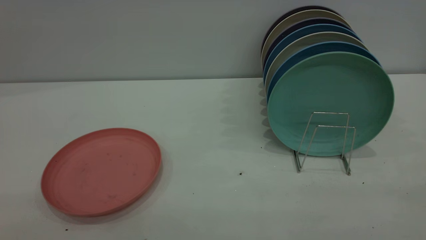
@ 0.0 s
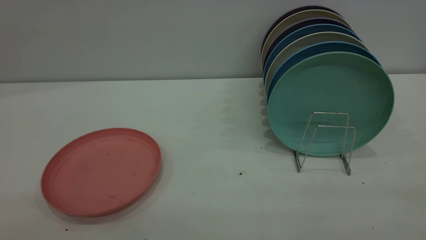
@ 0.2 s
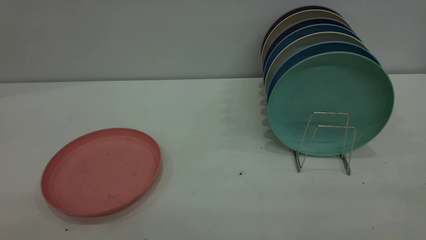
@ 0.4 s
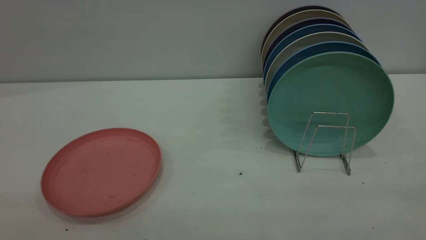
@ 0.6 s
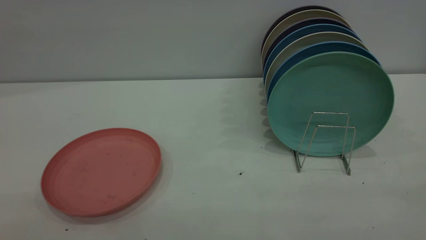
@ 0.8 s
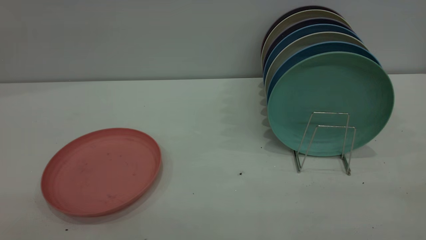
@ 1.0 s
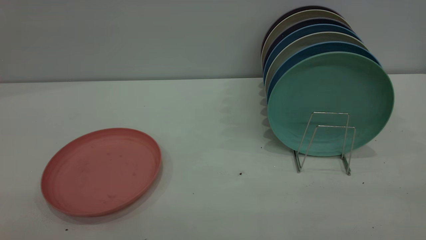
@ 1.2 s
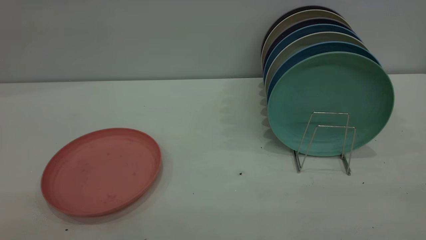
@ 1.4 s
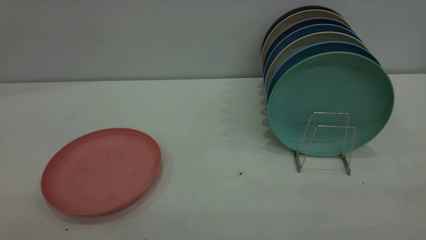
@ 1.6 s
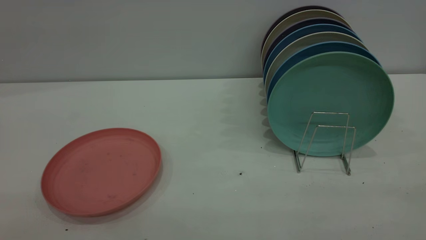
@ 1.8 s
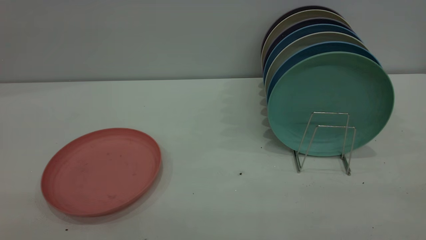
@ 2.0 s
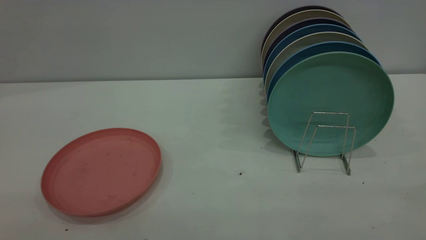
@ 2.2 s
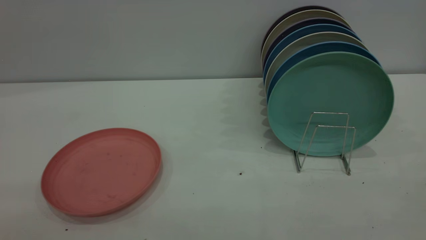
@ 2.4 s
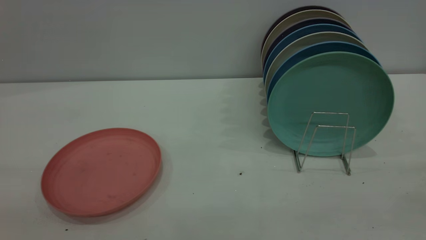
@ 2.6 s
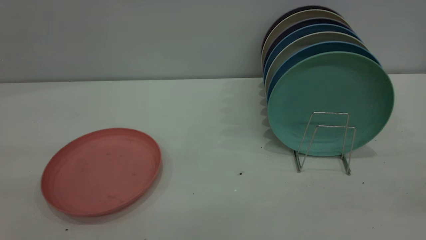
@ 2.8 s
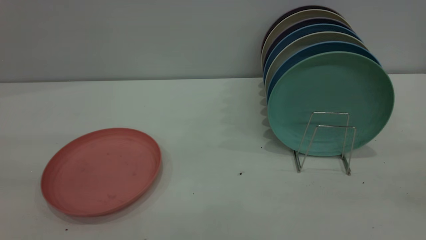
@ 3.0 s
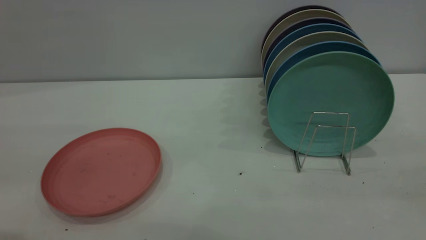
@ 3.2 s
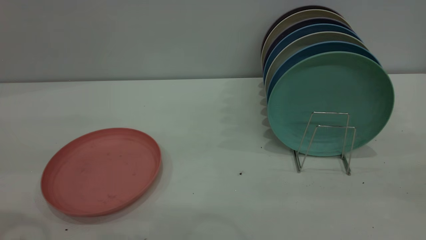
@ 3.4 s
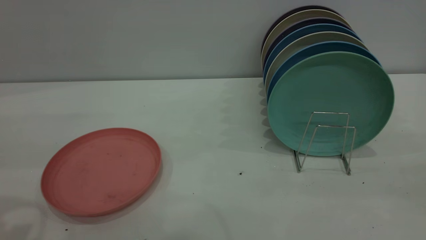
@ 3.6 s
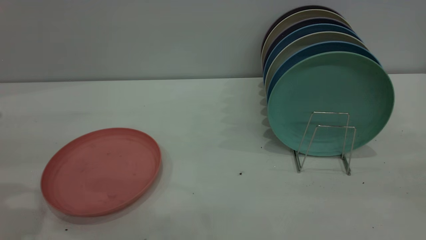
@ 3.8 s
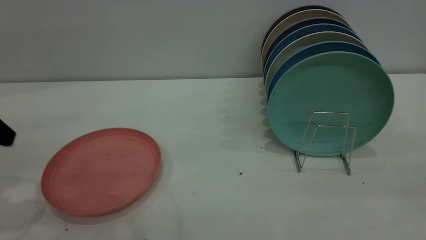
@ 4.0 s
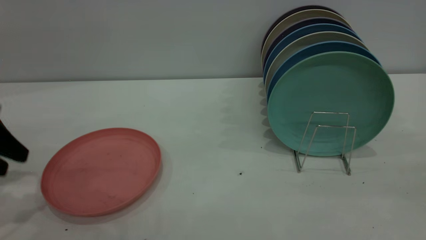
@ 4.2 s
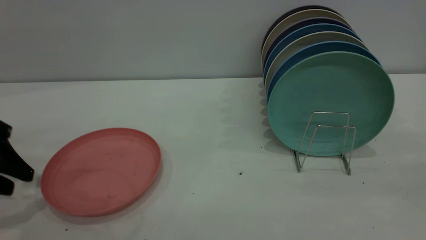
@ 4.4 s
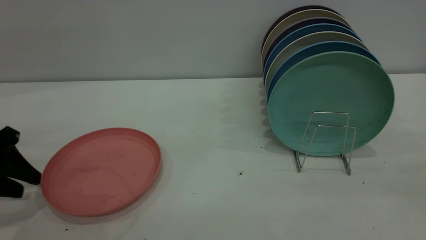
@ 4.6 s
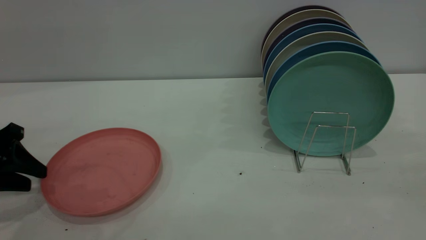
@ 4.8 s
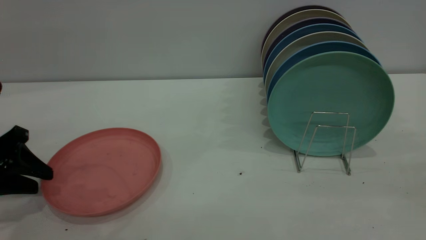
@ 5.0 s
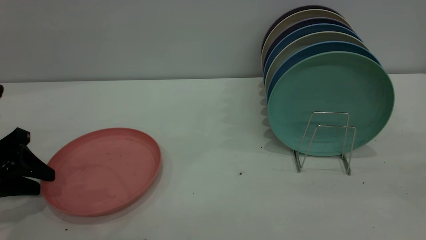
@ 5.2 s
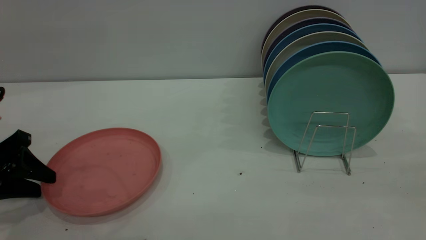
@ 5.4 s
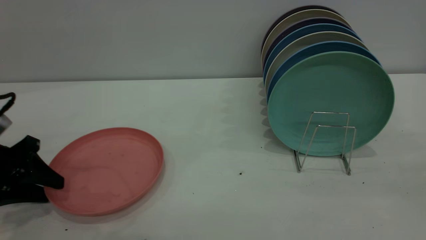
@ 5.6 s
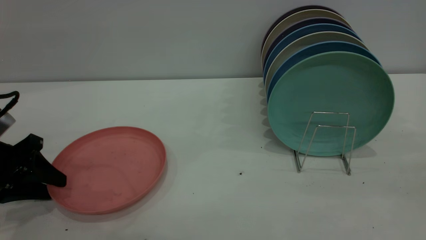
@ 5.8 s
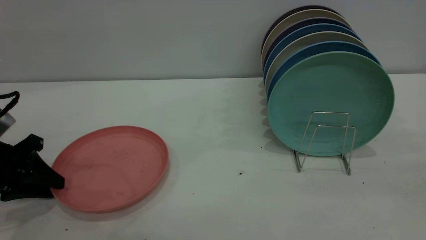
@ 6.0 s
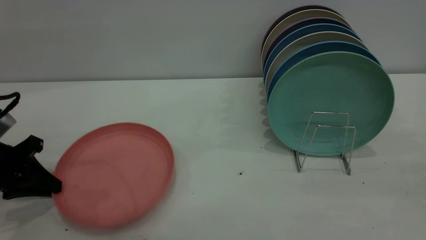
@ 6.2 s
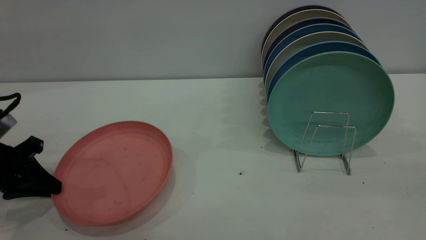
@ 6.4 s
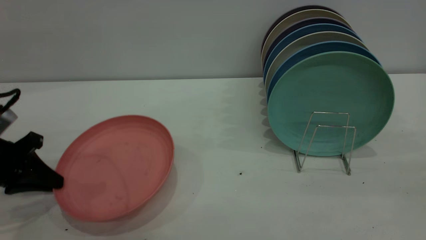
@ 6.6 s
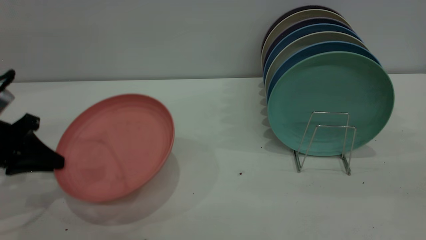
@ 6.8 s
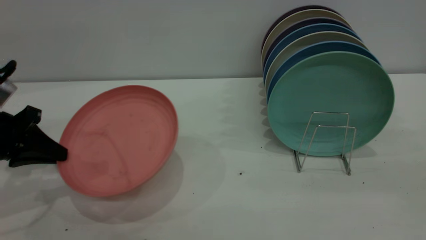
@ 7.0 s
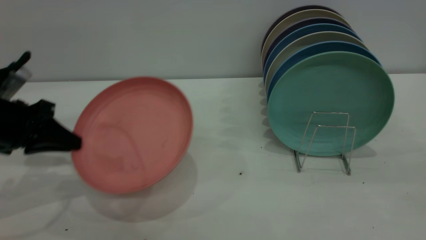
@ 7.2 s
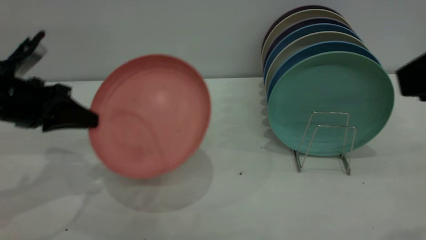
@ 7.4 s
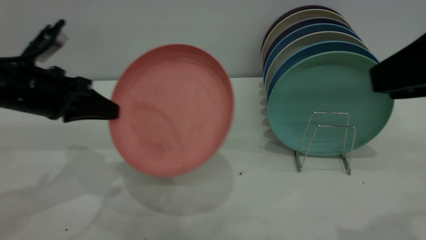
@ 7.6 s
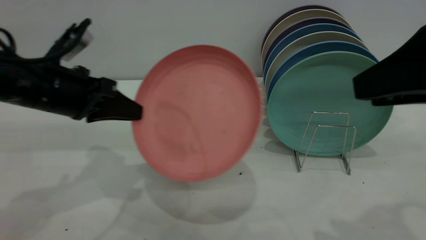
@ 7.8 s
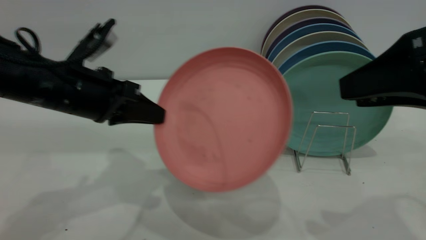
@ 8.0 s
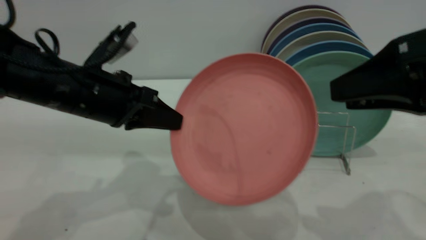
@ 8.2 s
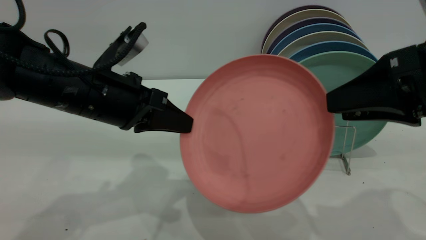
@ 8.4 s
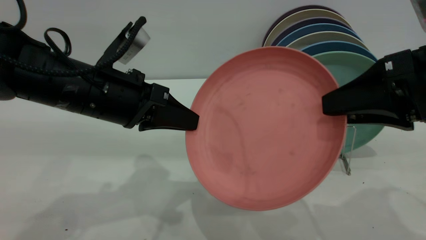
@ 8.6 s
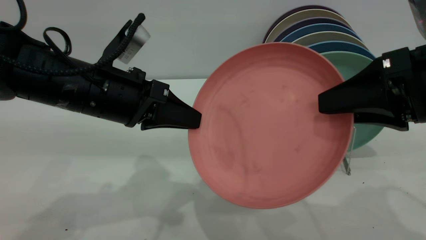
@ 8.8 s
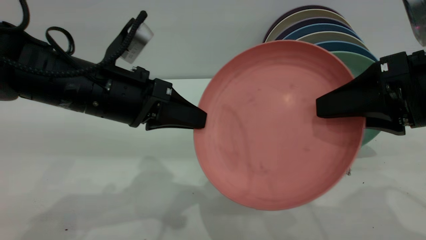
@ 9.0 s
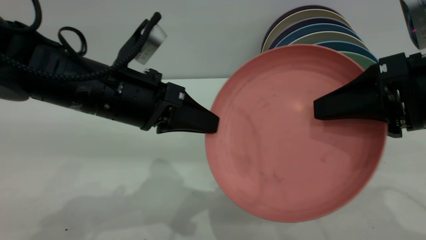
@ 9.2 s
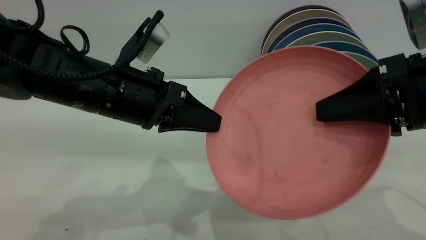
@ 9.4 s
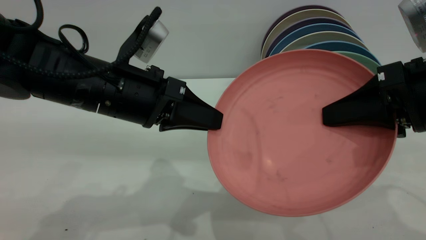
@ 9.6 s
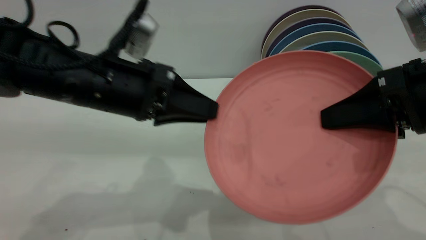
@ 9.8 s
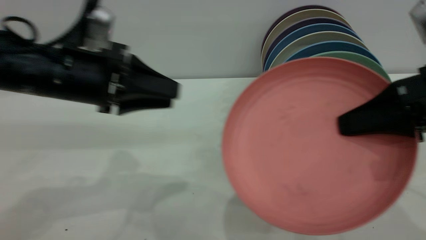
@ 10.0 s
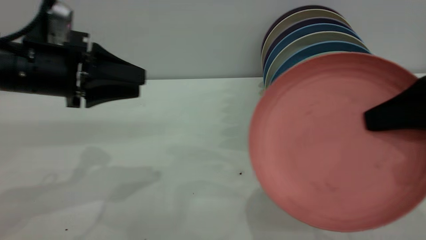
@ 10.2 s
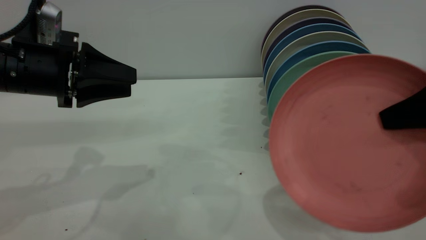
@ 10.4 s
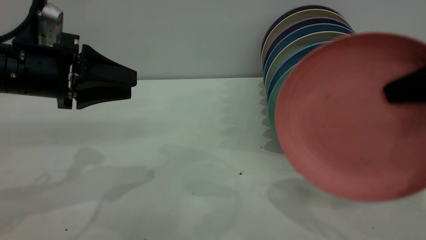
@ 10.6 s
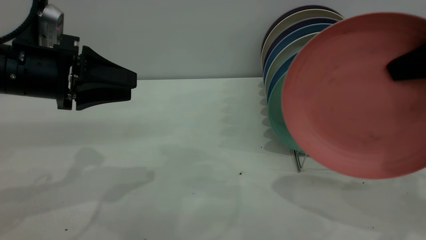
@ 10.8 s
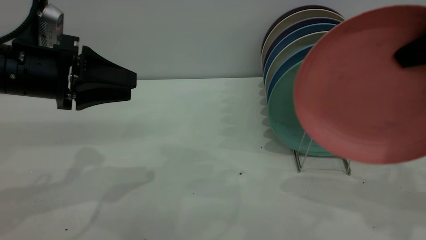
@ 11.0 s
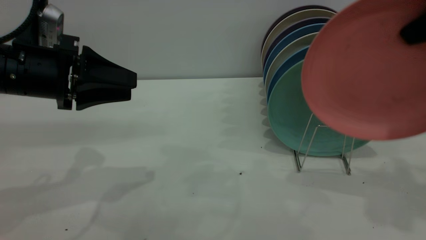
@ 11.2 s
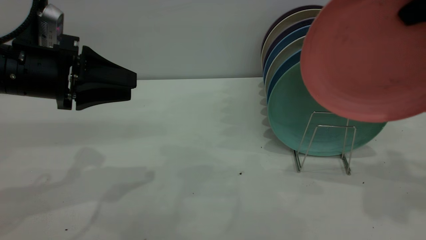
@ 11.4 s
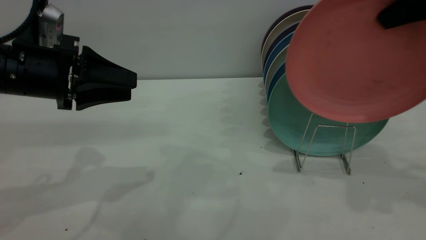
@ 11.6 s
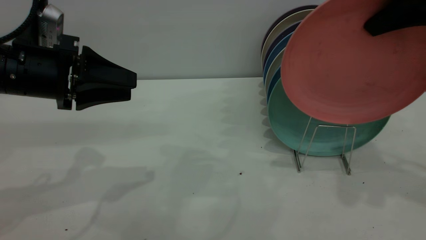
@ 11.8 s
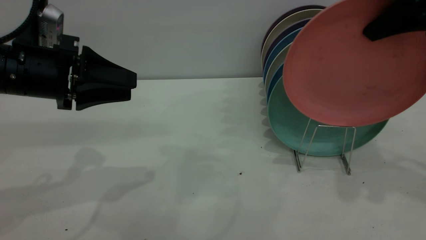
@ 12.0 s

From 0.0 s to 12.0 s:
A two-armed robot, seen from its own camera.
Task of the whole recording: put the plate on the plate rack.
Step, from 0.0 s to 6.6 s: Pick up the plate with the left gripper.
Step, from 6.8 s to 9.8 s: Pass the plate from the left gripper to the right gripper.
From 0.0 s to 1.6 s: The two grippers keep their place.
From 3.0 s to 4.4 s: The left gripper travels downward and forward by about 25 cm.
From 4.4 s to 6.0 s: The left gripper closes.
From 6.0 s to 7.6 s: The right gripper travels forward and downward by about 10 cm, while the left gripper travels to the right and upward by roughly 10 cm, and closes its fingers.
From 7.6 s to 9.0 s: The right gripper goes roughly 10 cm downward. The left gripper travels to the right by about 10 cm.
From 9.0 s to 10.4 s: The left gripper moves to the left, approximately 10 cm, and opens its fingers, while the right gripper travels to the right by roughly 5 cm, and closes up.
From 10.4 s to 12.0 s: The right gripper heads forward and upward, covering roughly 15 cm.

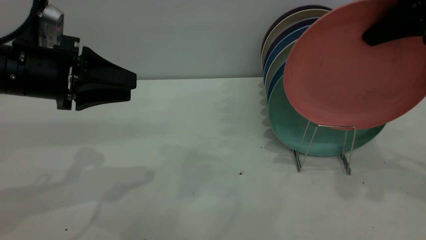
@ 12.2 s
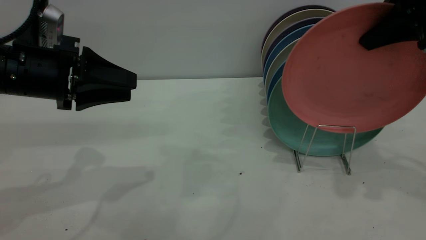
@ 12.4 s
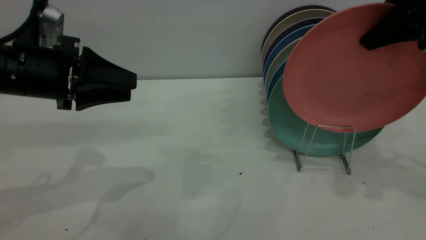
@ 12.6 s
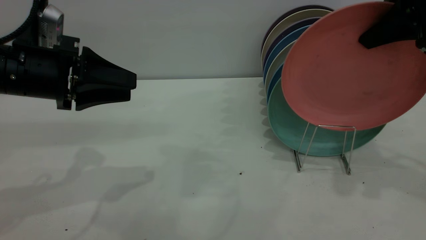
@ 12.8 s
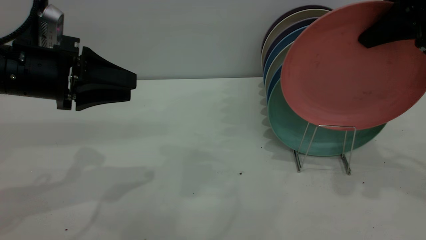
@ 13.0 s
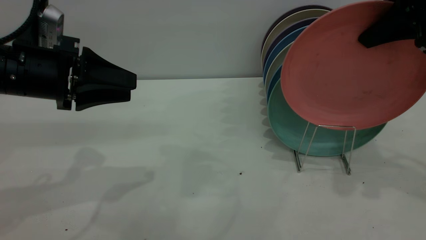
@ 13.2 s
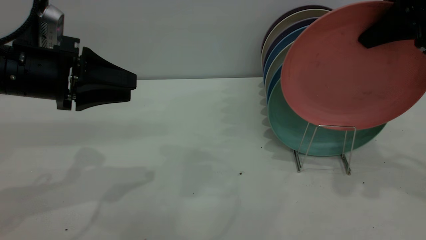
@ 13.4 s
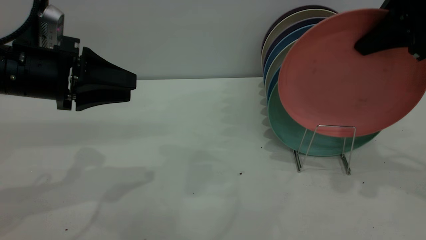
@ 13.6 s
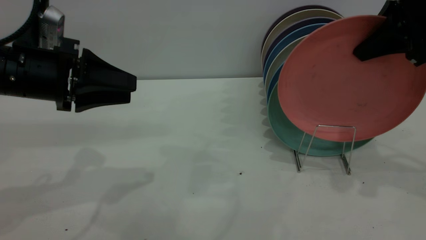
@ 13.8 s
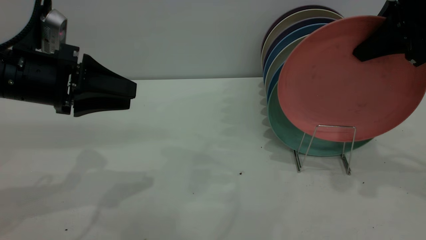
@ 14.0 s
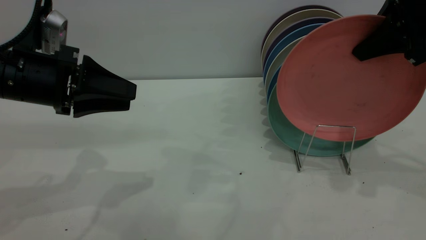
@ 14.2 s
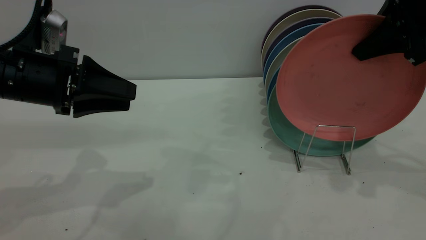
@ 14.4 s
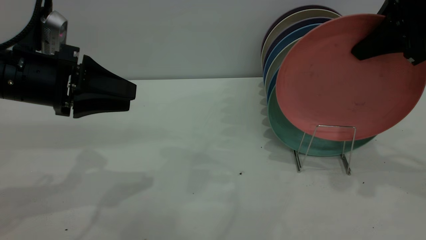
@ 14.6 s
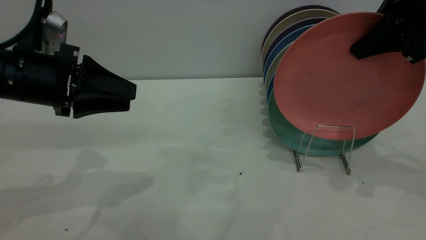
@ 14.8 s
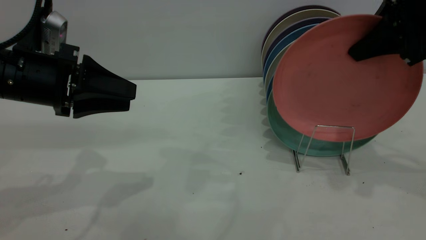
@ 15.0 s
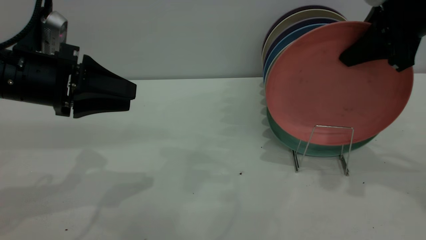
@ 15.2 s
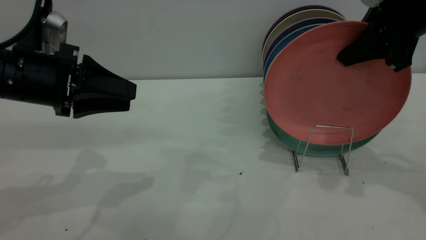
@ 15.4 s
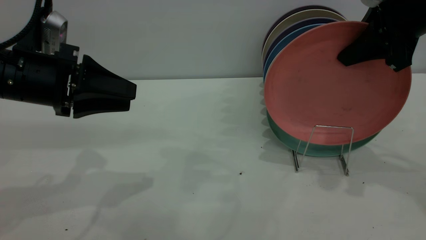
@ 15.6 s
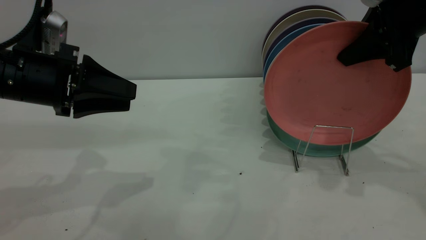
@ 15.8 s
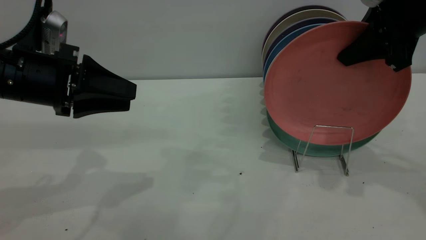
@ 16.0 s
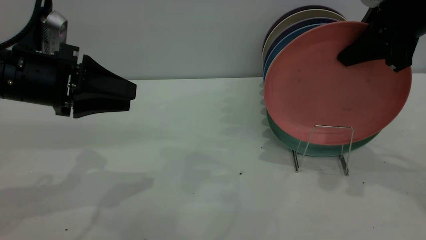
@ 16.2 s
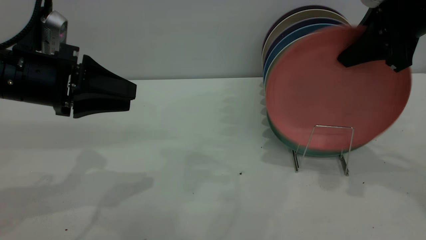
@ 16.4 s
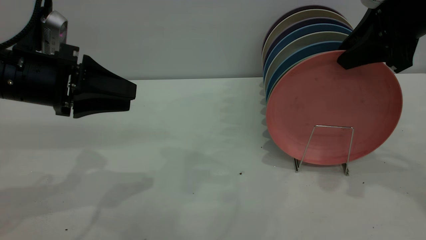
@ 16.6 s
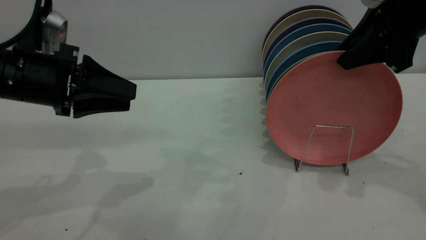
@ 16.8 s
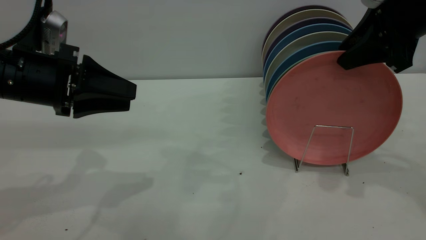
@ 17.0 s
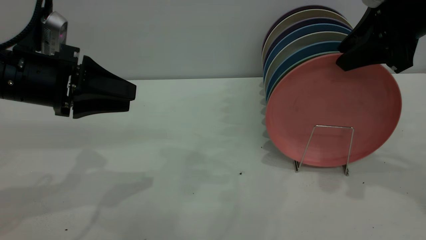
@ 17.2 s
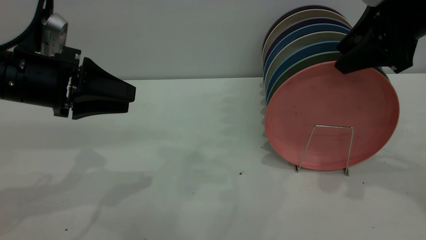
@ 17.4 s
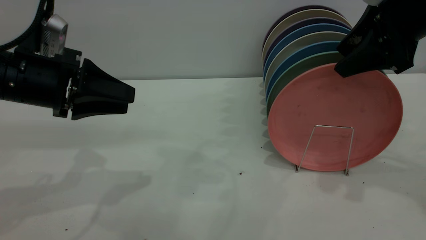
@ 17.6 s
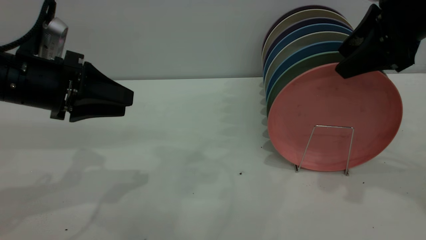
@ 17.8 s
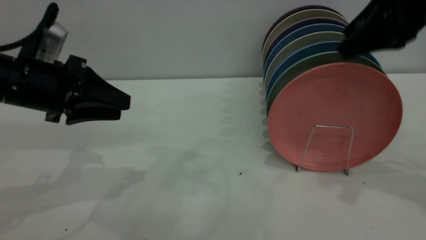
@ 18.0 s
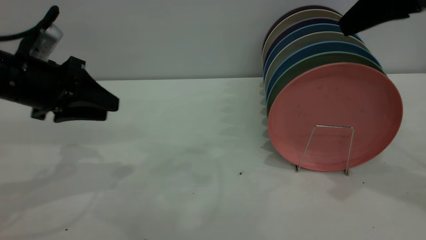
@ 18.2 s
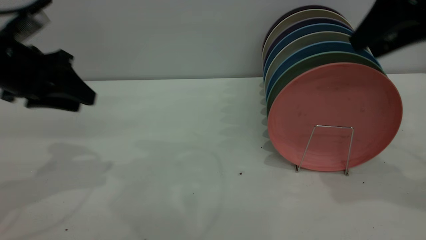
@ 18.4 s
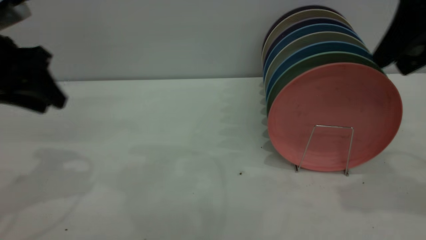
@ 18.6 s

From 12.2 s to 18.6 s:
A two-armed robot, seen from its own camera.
Task of the whole recording: put the plate on the plate rack.
Step, from 12.2 s to 18.6 s: Place the plate on the shelf.
From 12.2 s to 15.4 s: The grippers move only a little.
From 15.4 s to 17.0 s: The right gripper opens its fingers.
From 17.0 s to 18.6 s: The right gripper shifts about 5 cm backward, and opens up. Meanwhile the left gripper heads upward and to the left, covering roughly 10 cm.
